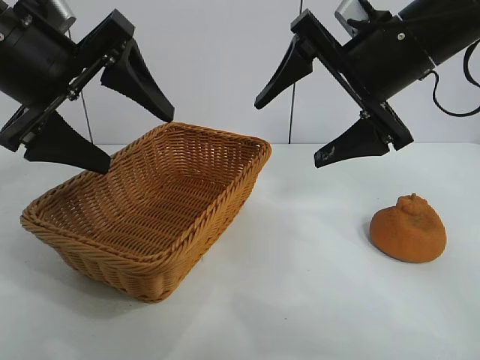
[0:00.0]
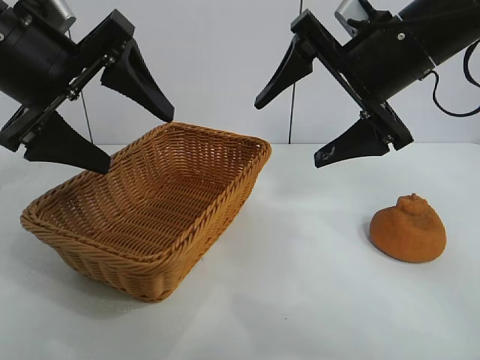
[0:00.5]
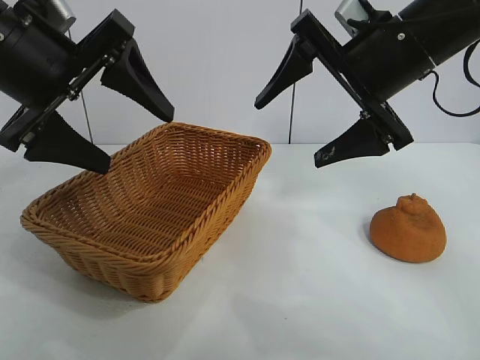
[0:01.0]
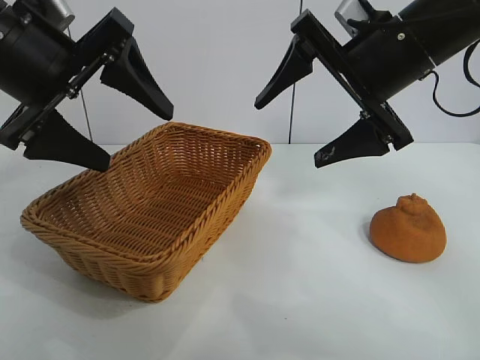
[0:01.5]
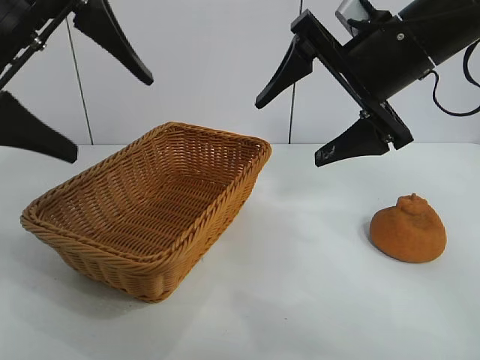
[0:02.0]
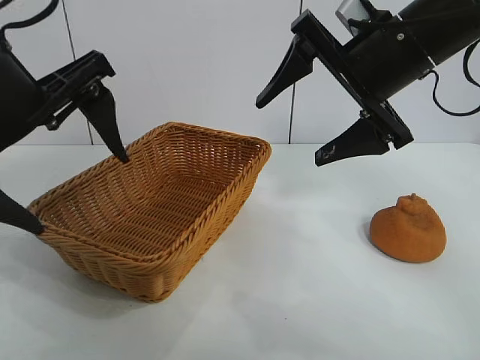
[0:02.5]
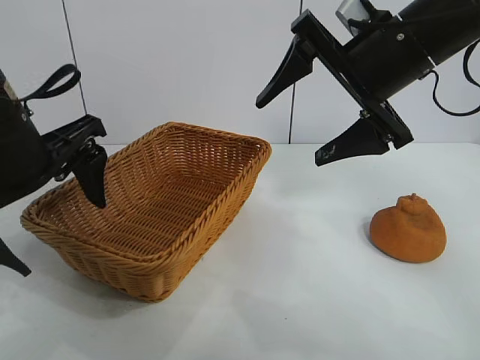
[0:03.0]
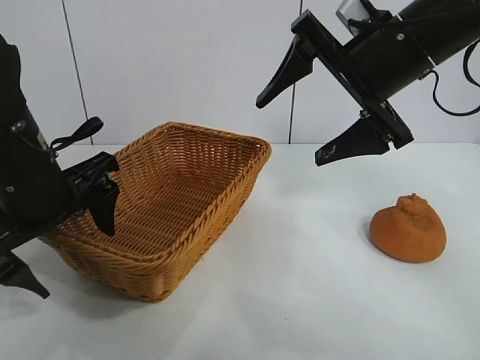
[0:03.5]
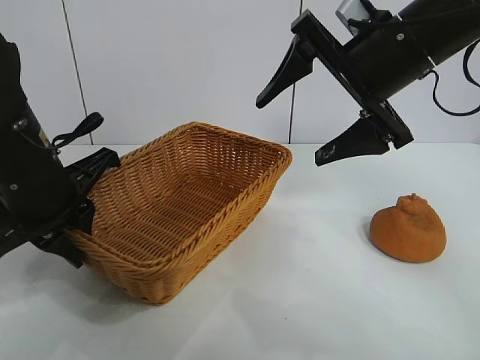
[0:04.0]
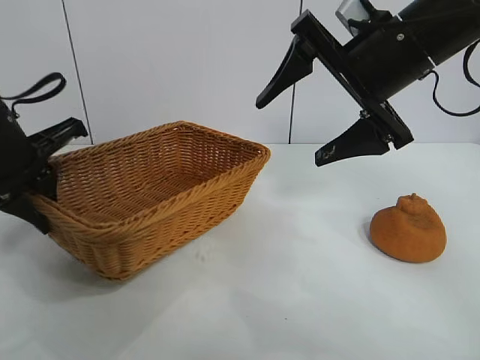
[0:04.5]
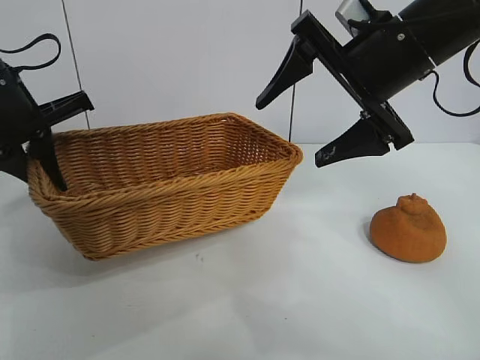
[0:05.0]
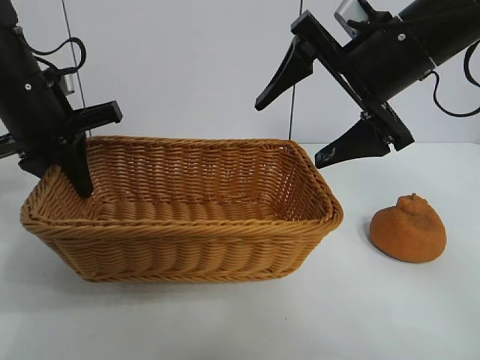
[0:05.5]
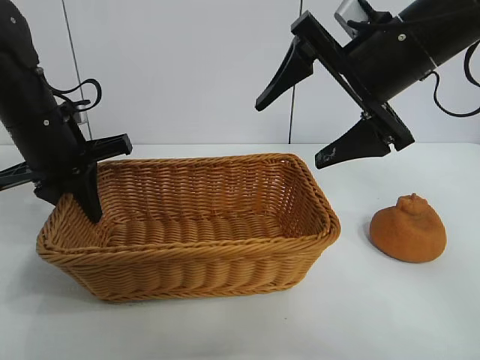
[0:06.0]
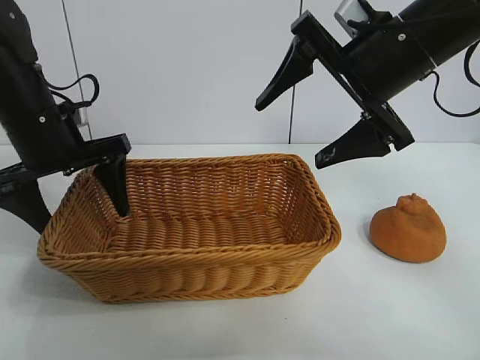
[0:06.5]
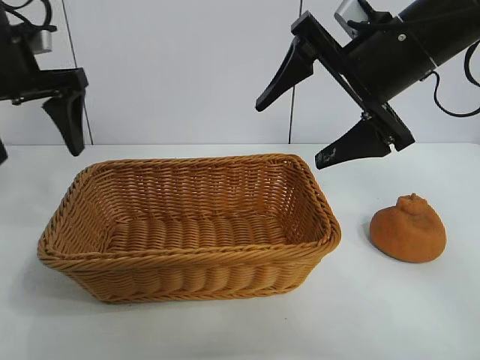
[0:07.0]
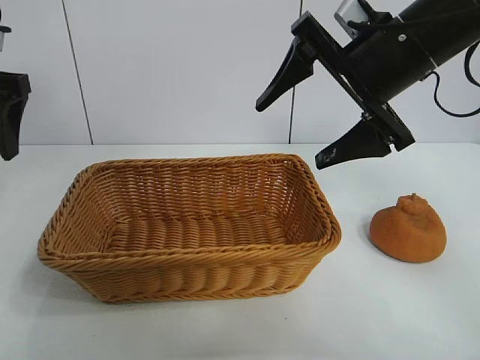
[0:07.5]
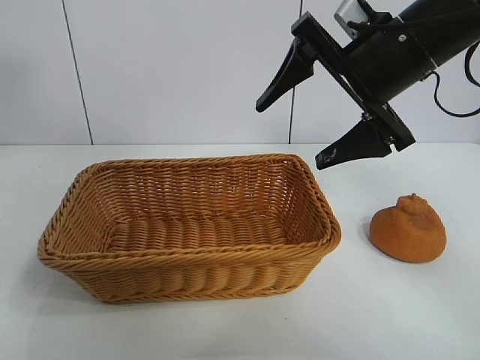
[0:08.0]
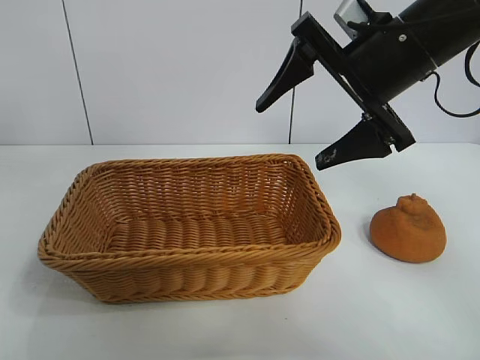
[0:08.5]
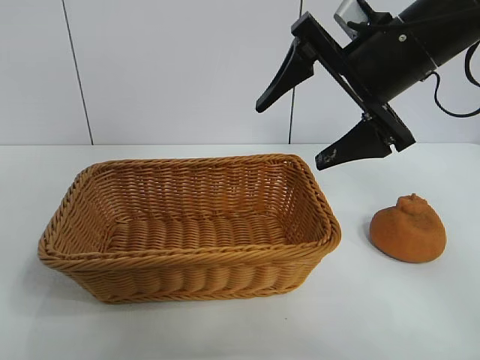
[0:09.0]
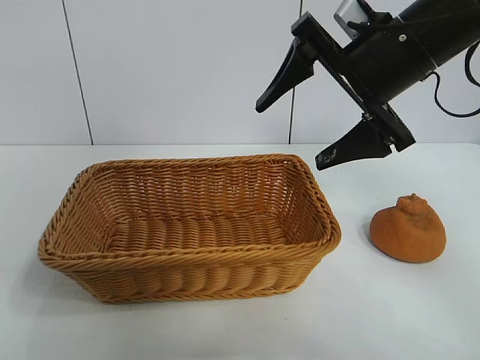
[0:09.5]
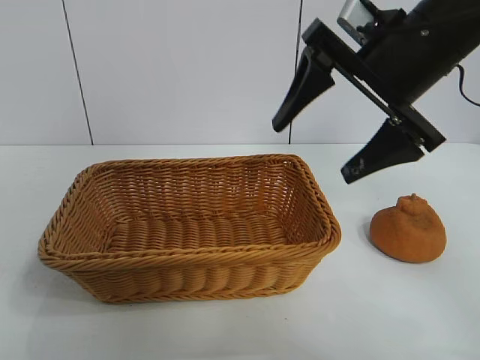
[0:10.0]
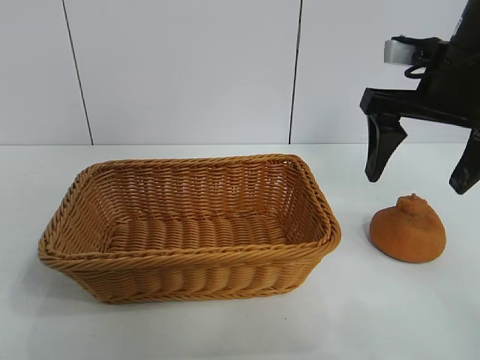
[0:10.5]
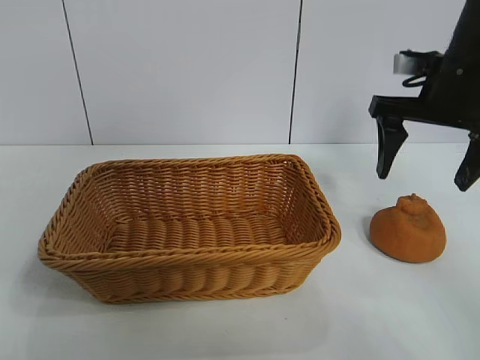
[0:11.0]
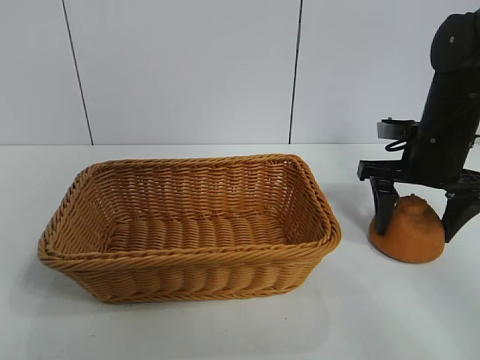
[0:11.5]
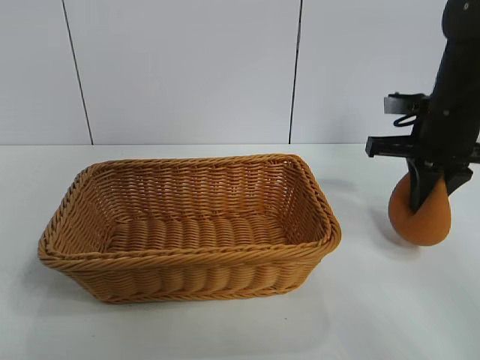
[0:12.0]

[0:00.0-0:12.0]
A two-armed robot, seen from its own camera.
Task of the whole recording: pick up the orange and put it into the basket.
Step, 0:01.5 to 0:03.5: Grasp the basket with left gripper.
Step, 0:04.0 to 0:06.5: Place the basket in the center of view with left gripper.
Step, 0:07.0 to 0:11.5: Grasp the orange with right gripper.

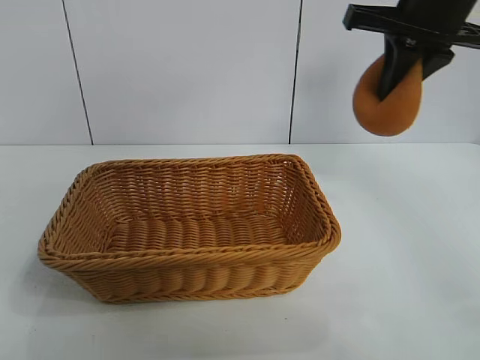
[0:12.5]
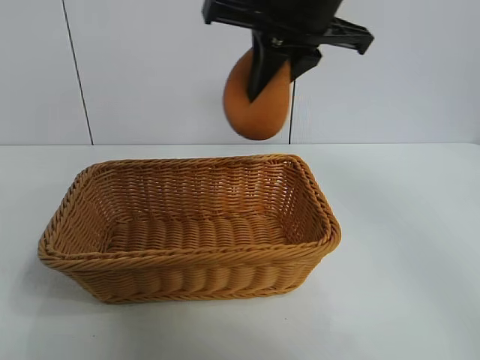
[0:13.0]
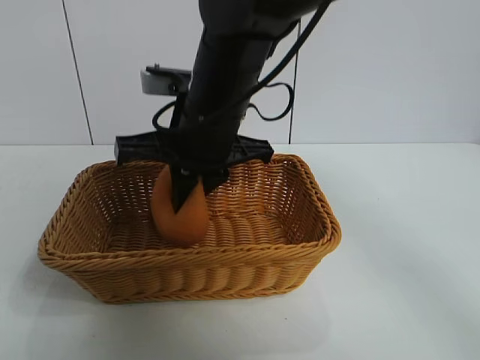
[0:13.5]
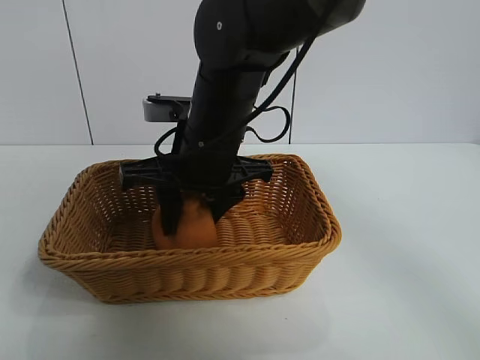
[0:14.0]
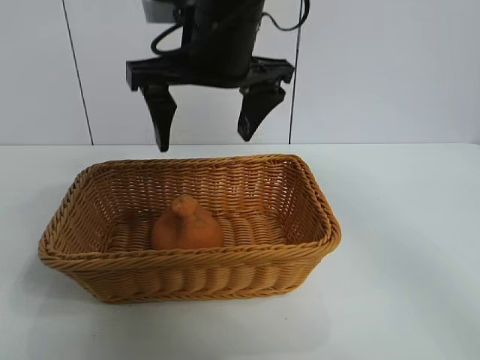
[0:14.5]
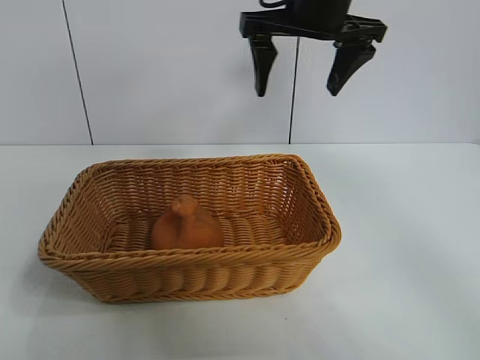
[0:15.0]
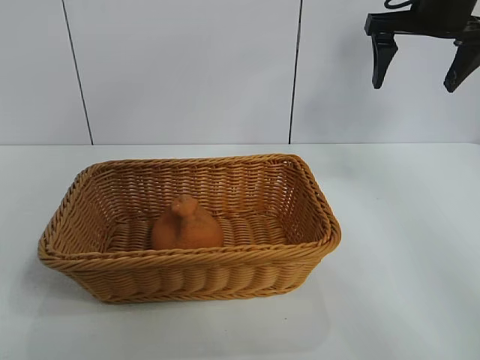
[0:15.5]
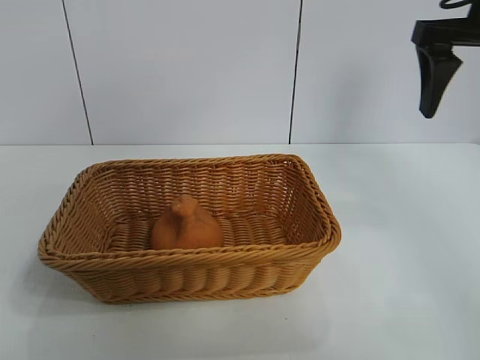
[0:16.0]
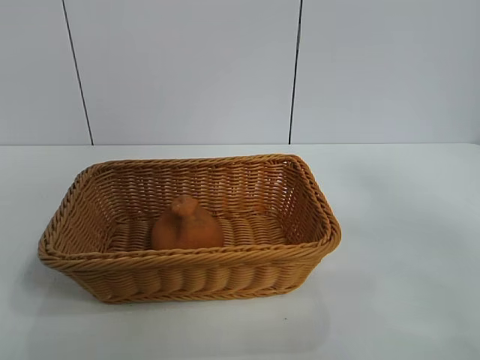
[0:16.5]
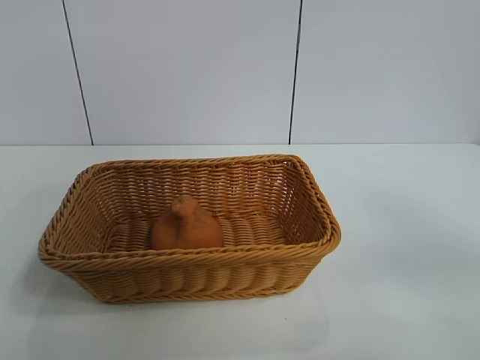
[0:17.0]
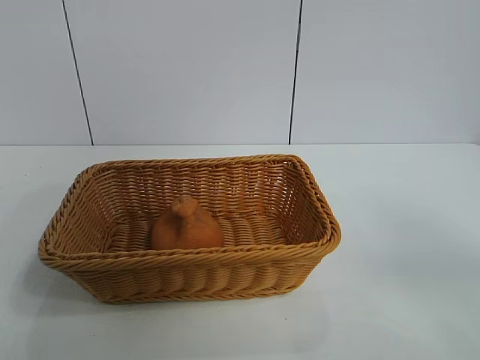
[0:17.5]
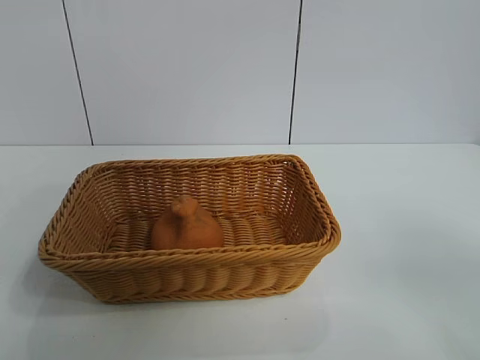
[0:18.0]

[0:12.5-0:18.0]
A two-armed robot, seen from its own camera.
Task of the whole recording: pick up the orange and put it into the basket.
Step, 0:12.5 to 0:14.0: Place the orange in the basket with right gripper.
